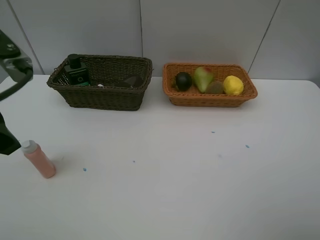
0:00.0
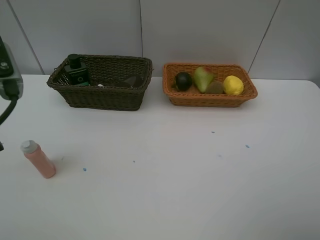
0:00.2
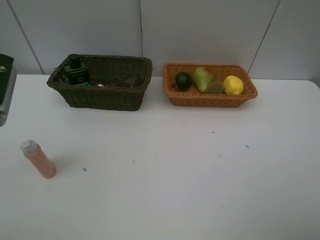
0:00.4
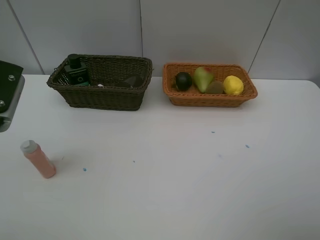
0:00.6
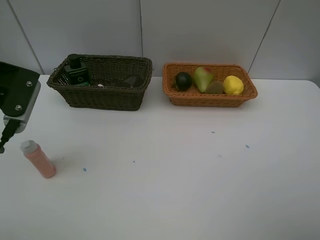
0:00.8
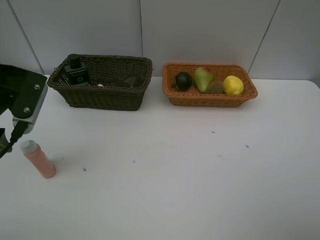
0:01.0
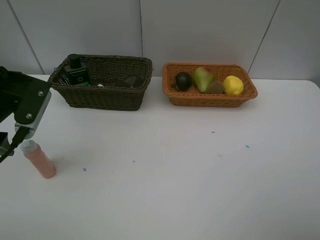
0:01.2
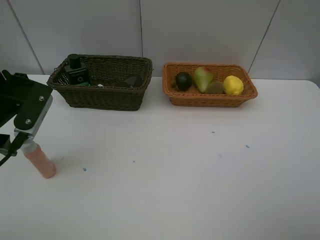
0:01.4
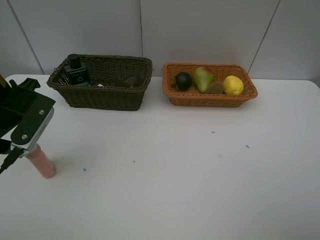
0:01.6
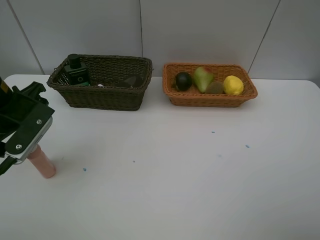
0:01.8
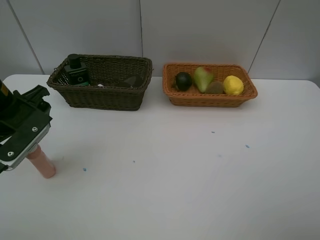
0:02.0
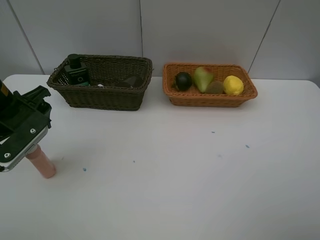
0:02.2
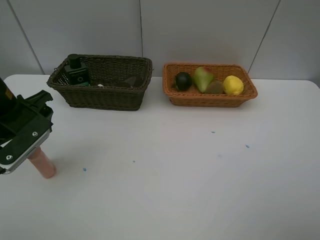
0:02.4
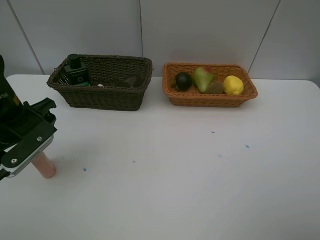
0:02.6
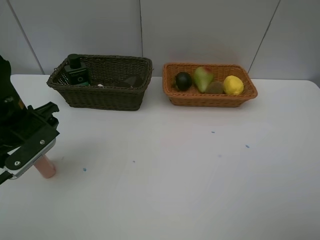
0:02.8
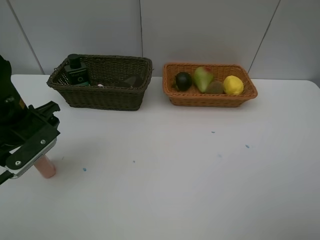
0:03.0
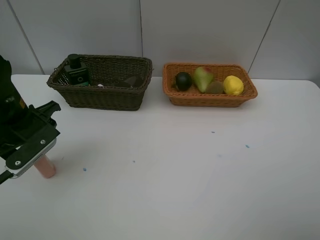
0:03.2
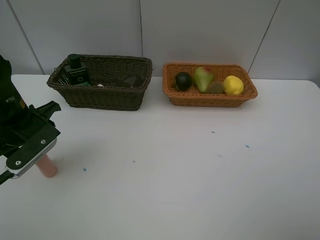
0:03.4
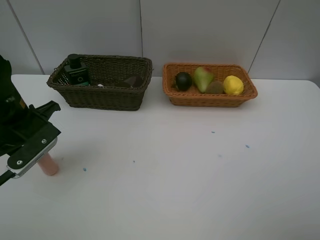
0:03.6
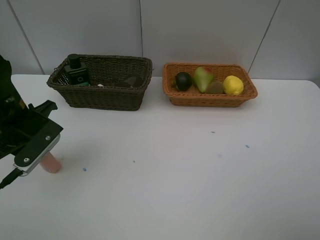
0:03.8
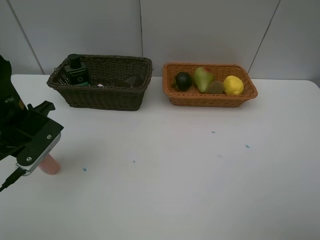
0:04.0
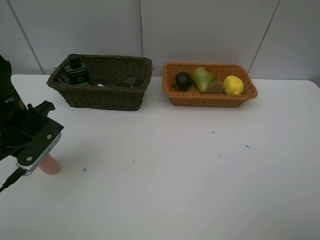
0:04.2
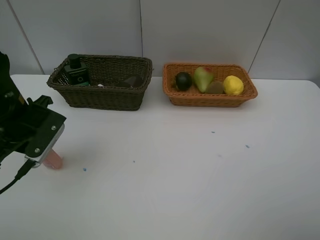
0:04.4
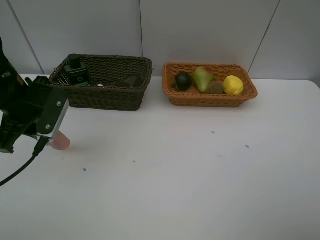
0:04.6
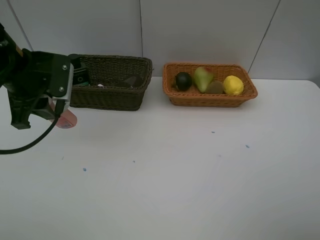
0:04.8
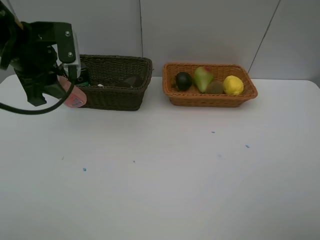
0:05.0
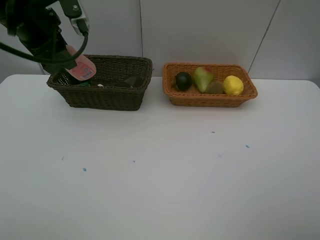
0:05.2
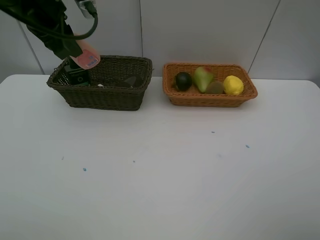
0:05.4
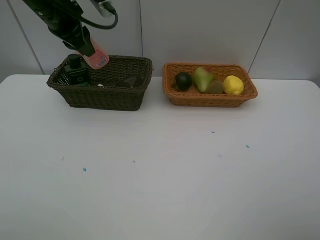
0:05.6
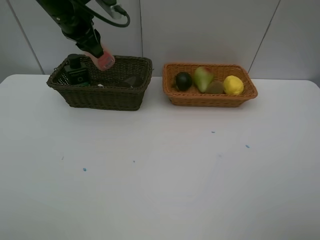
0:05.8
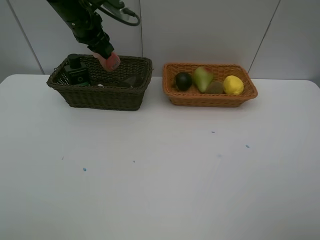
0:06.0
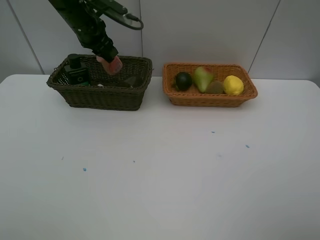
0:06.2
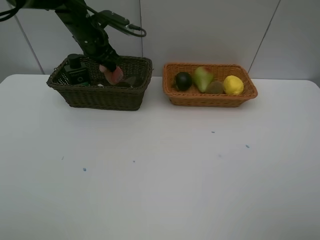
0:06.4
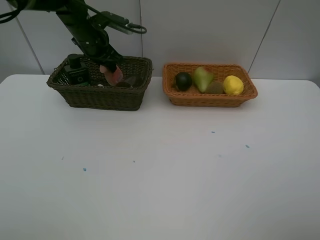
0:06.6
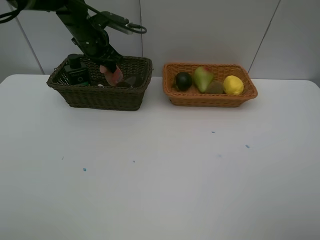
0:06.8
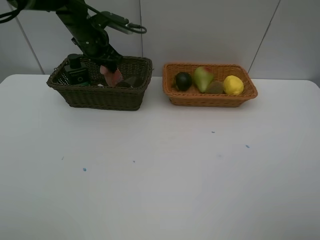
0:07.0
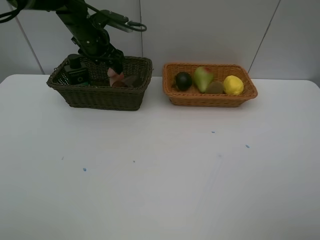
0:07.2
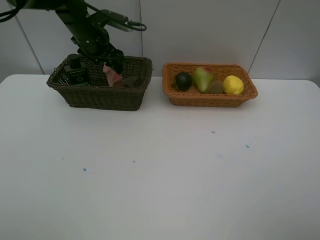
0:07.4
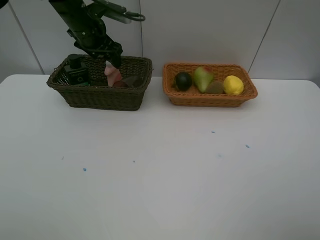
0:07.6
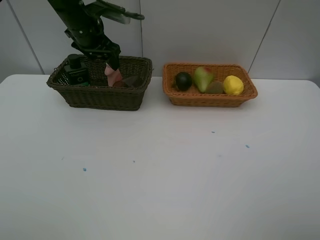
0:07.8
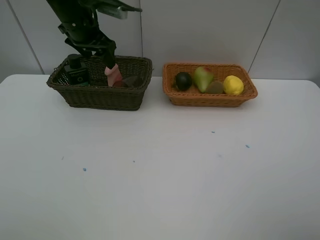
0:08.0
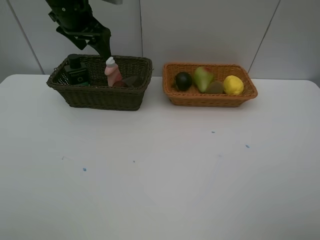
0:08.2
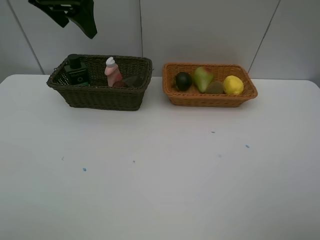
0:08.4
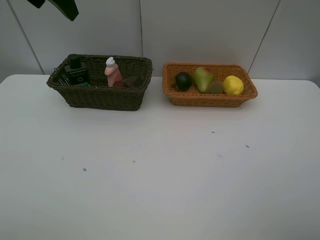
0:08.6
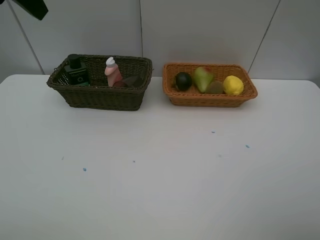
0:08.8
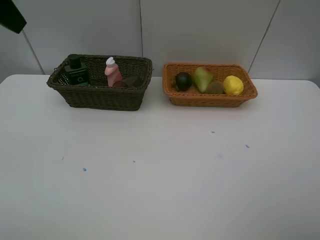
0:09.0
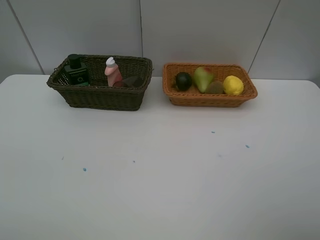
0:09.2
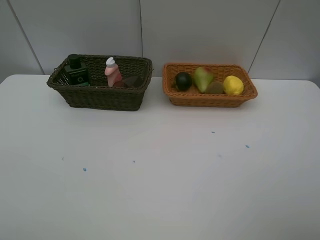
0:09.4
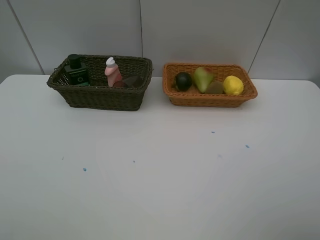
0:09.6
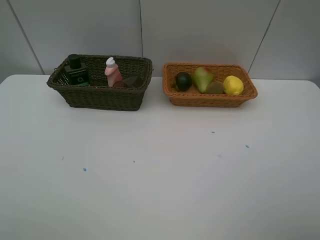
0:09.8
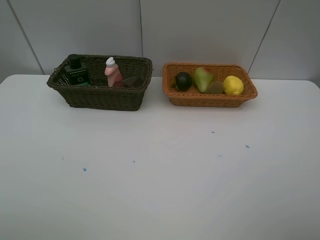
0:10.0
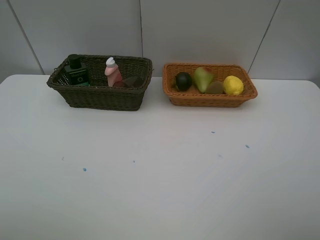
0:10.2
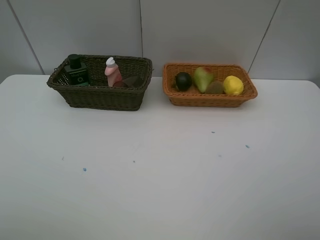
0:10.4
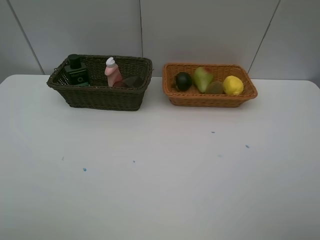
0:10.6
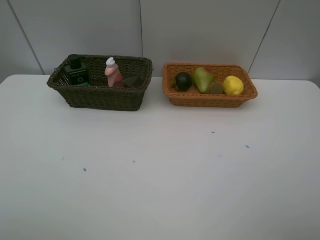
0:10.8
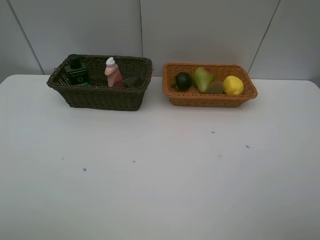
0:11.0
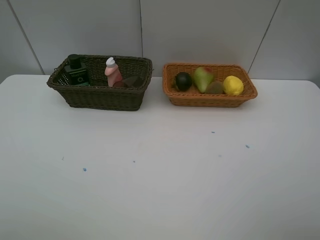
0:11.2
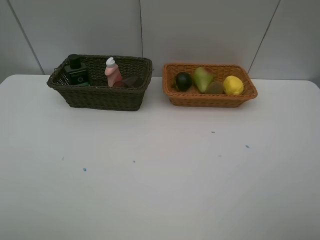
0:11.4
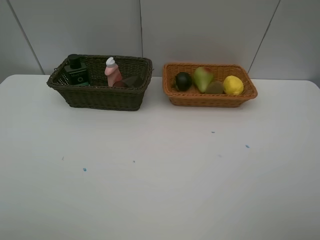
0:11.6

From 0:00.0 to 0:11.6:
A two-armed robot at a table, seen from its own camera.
Task of the whole recording: Place multiple objects separately in different baskets.
Step, from 0:00.0 to 0:04.4: Pick up the laundry detergent with left gripper.
Step, from 0:04.6 to 0:07.8: Place the laundry detergent in the dark basket with left gripper.
From 0:00.0 to 0:01.4: The left gripper travels downward and forward by some 10 cm.
From 0:01.4 to 0:02.8: The left gripper goes about 5 cm downward.
From 0:02.8 to 0:04.4: The left gripper closes.
From 0:04.4 to 0:05.8: The left gripper heads forward and upward, covering approximately 20 cm.
From 0:05.8 to 0:07.2: The left gripper is displaced downward by approximately 5 cm, and opens its fingers.
From 0:07.2 to 0:08.8: The left gripper moves upward and backward, about 30 cm.

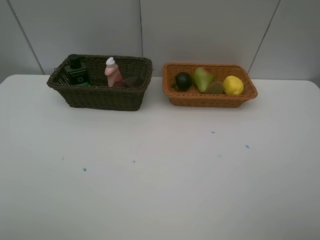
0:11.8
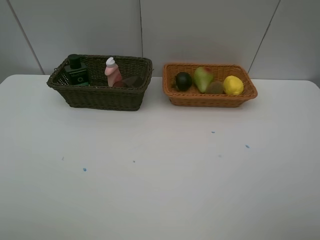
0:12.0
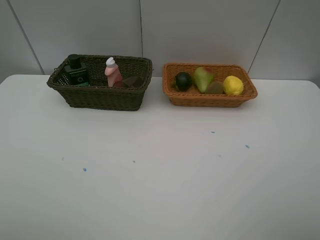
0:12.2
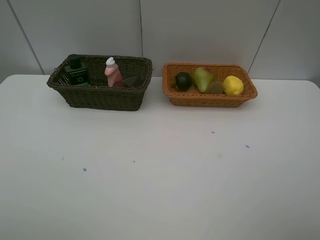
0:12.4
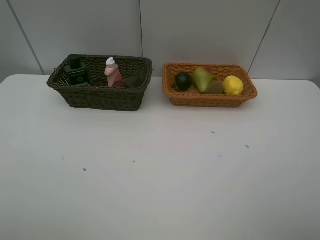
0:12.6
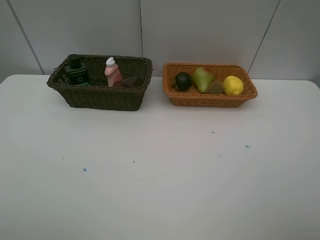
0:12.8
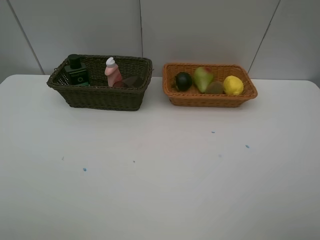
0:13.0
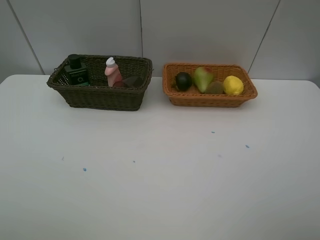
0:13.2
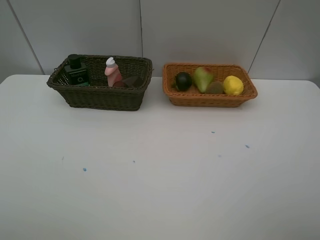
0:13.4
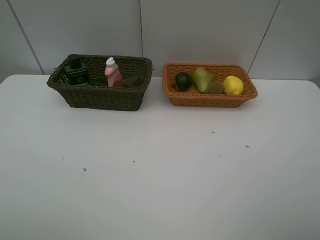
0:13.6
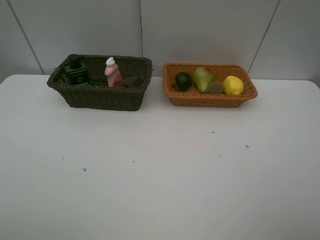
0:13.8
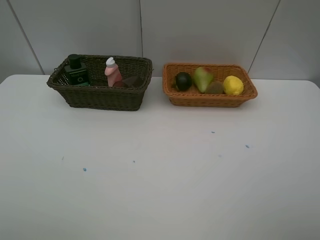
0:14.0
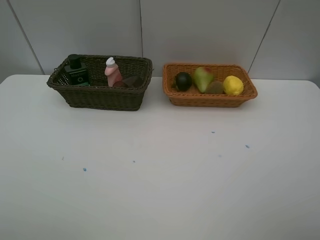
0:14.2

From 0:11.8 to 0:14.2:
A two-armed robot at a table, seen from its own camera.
Task of the whole recording: Place multiple objects separately in different baskets.
From 0:13.0 to 0:14.2: The two grippers keep their place.
